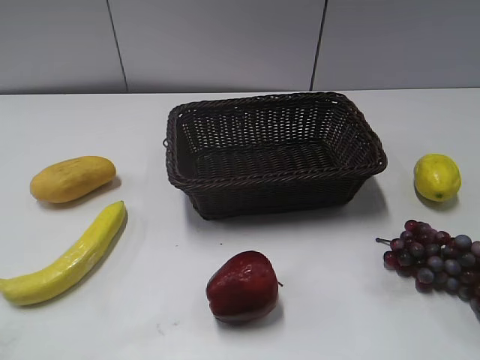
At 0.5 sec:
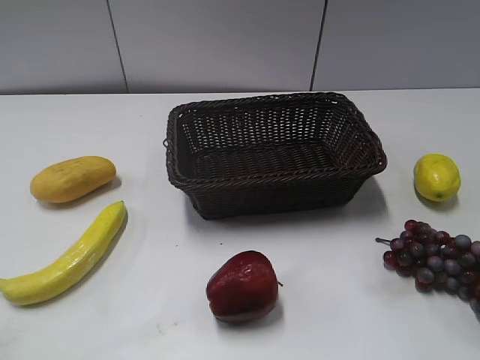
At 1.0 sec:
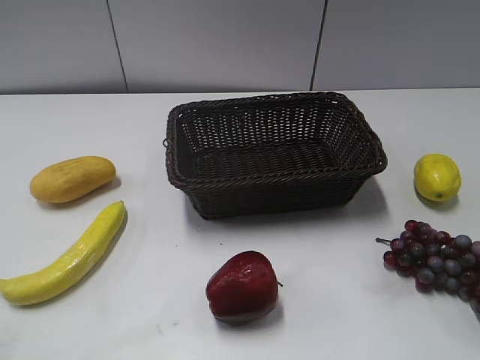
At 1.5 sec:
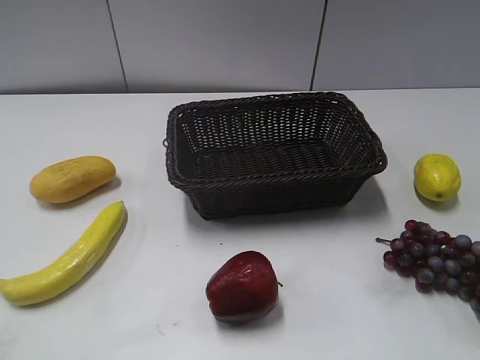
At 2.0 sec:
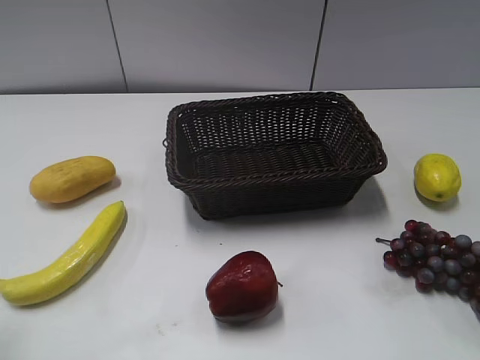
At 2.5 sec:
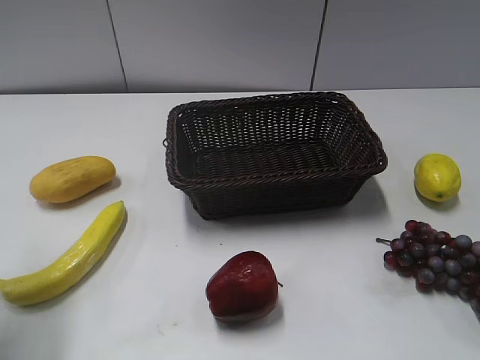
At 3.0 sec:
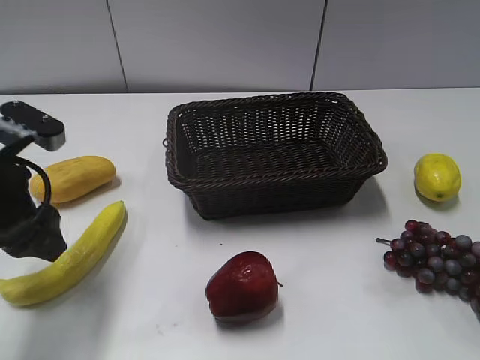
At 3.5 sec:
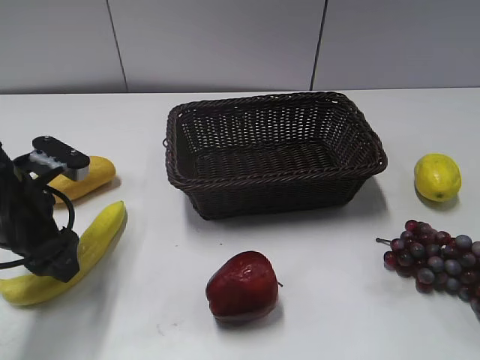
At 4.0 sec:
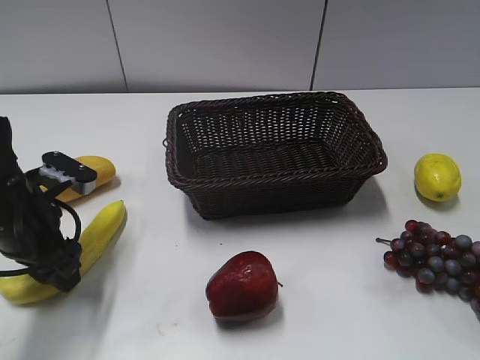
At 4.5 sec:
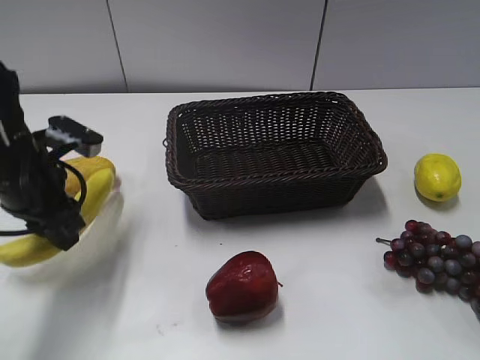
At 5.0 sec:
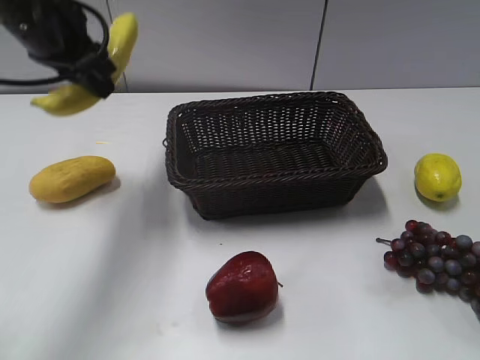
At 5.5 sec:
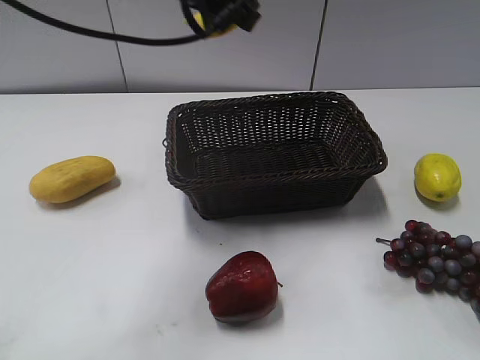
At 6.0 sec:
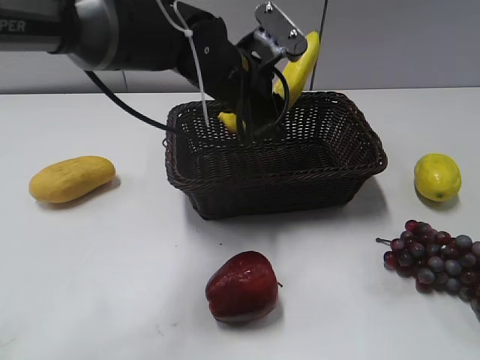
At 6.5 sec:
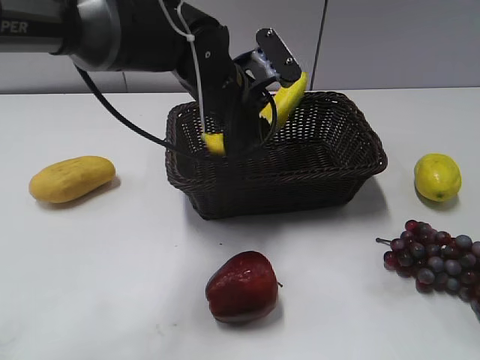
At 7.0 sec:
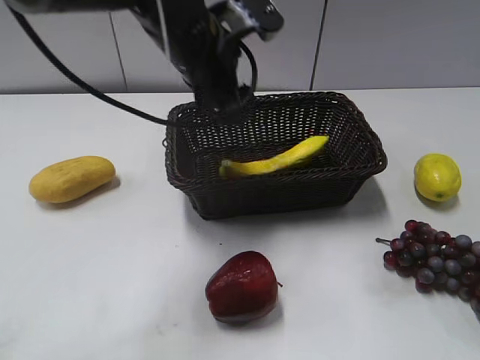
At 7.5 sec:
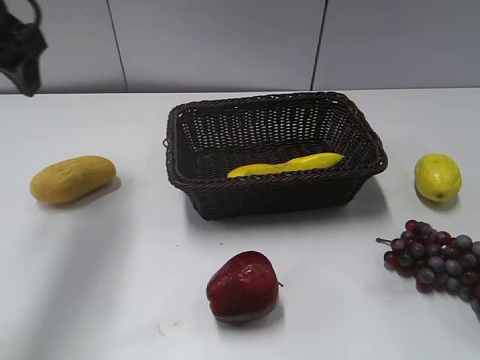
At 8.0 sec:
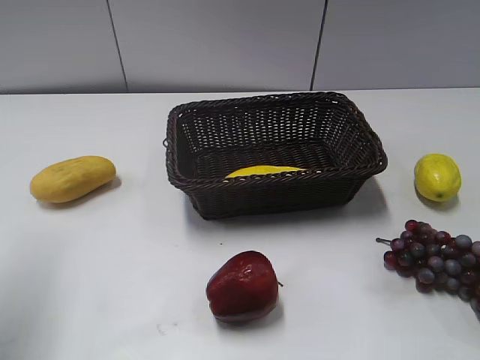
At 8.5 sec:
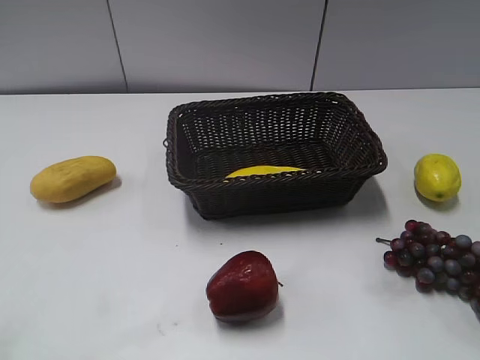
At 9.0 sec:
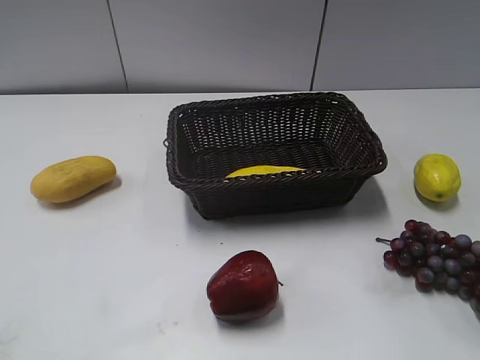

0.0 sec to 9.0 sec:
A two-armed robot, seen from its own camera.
Step, 3.0 sec to 4.0 sec: Grasp the banana with left gripper.
Step, 5.0 sec to 6.5 sec: Place the banana in the basket with left gripper.
2.0 sec to 4.5 sec: The left gripper is displaced forward, to the right and downward by roughly 20 cm, and closes up.
4.5 sec to 7.0 sec: The left gripper heads to the right and upward, covering about 15 cm, and opens its fingers.
7.0 sec to 9.0 sec: The left gripper heads backward and to the left, covering about 40 cm.
